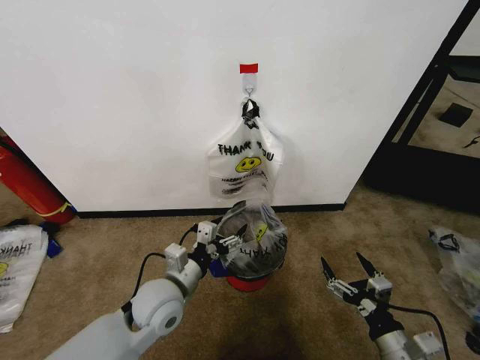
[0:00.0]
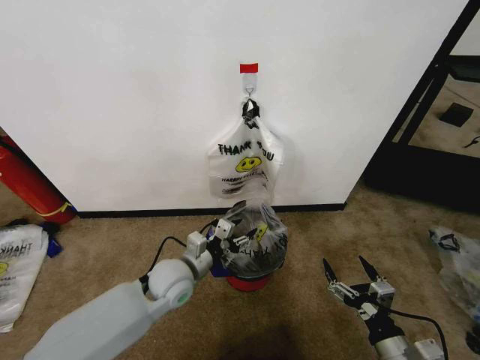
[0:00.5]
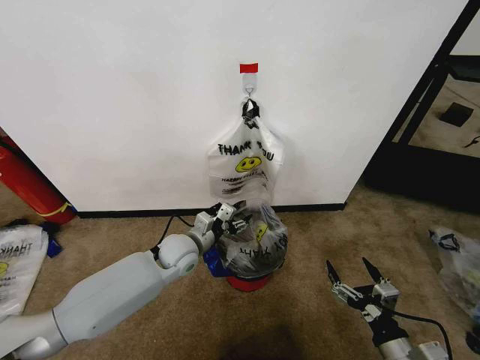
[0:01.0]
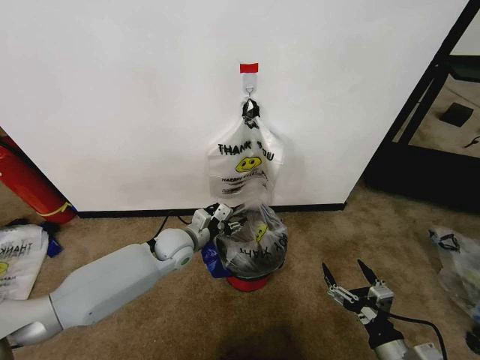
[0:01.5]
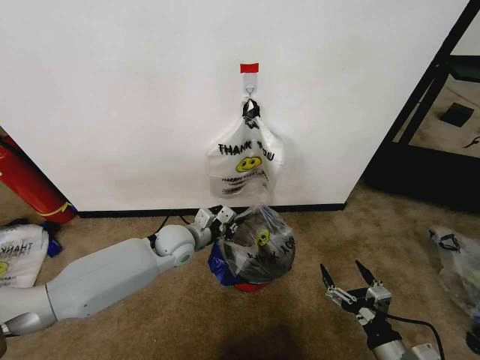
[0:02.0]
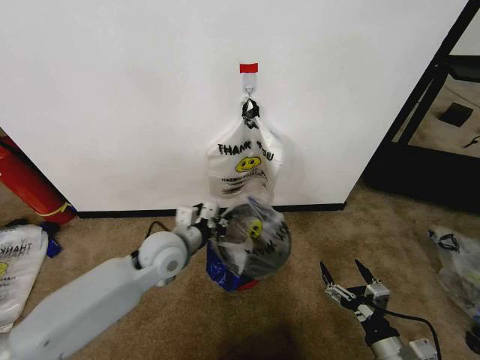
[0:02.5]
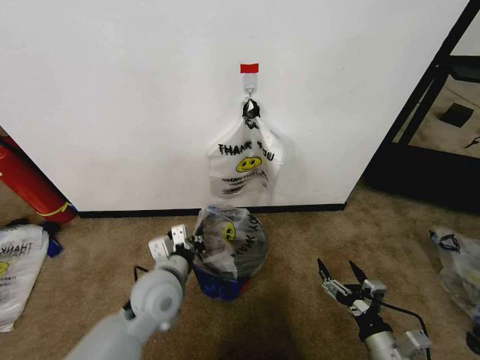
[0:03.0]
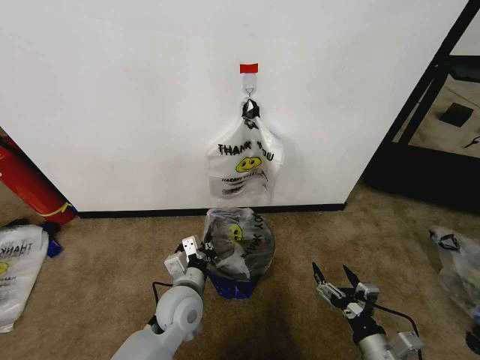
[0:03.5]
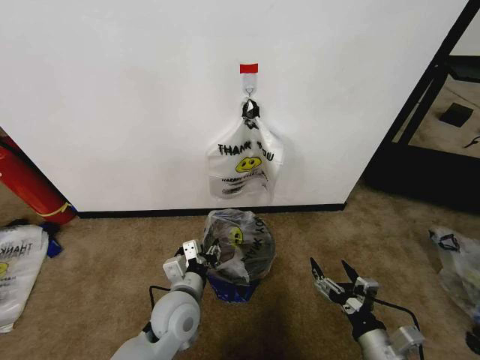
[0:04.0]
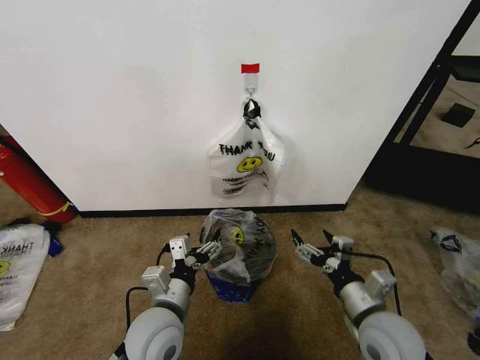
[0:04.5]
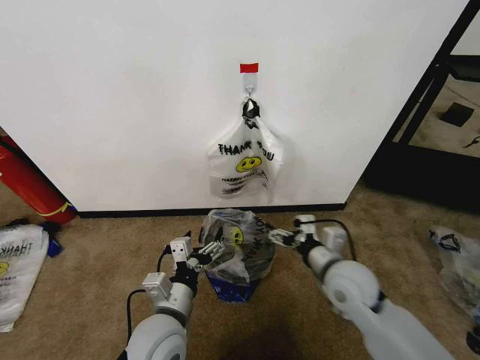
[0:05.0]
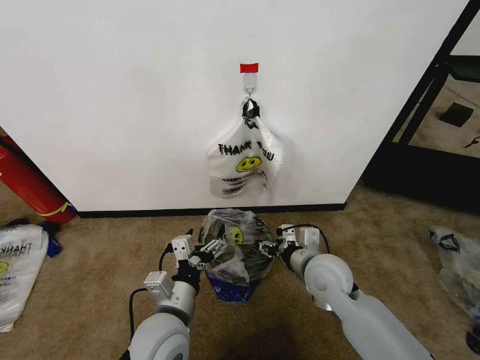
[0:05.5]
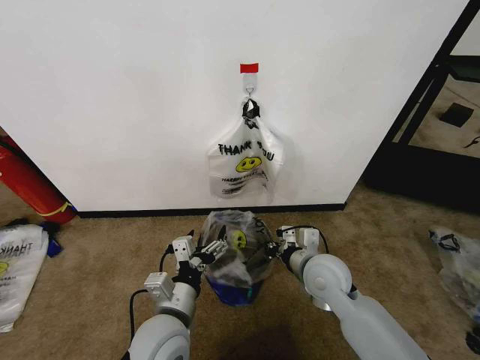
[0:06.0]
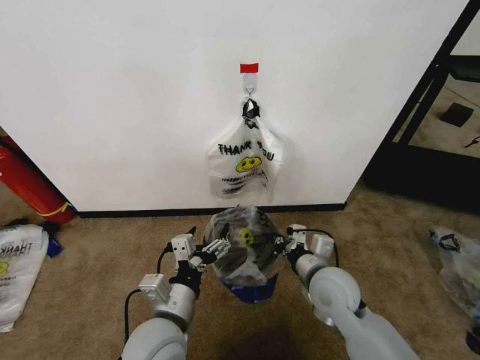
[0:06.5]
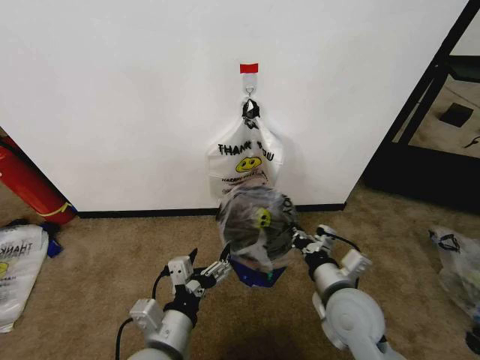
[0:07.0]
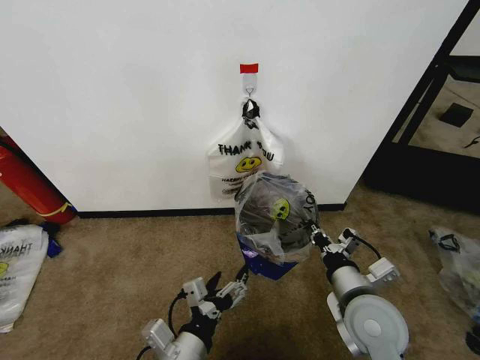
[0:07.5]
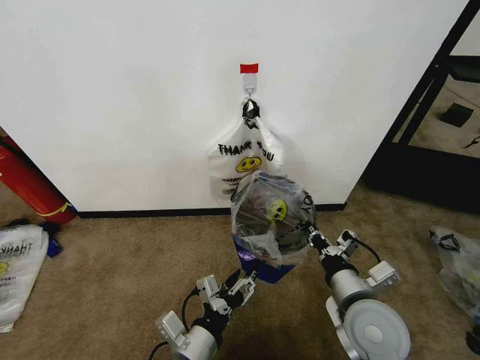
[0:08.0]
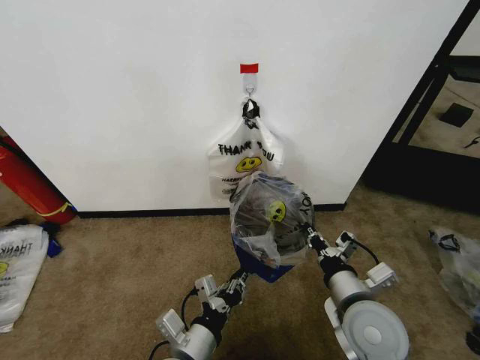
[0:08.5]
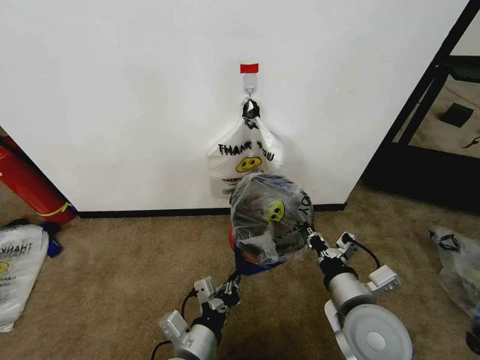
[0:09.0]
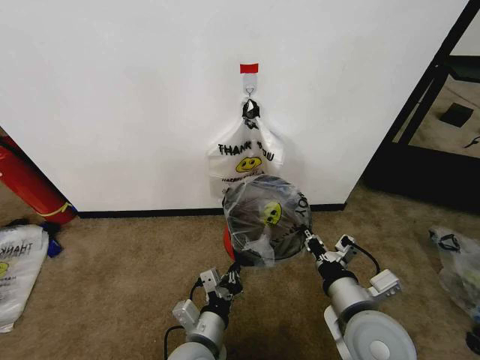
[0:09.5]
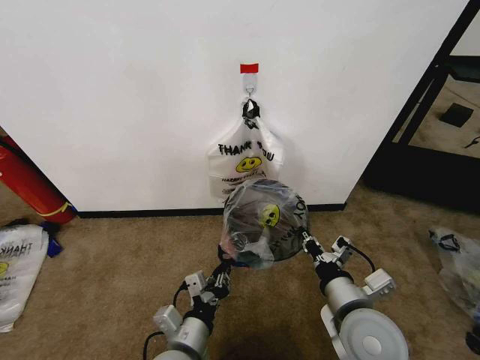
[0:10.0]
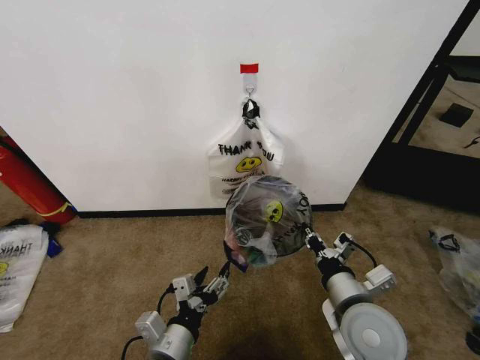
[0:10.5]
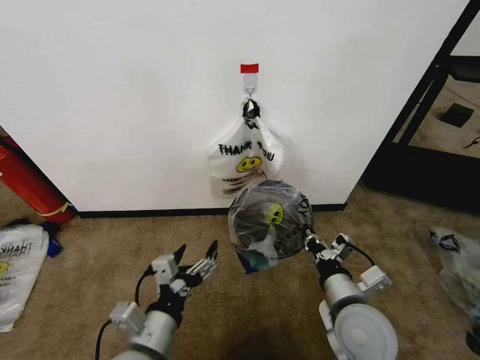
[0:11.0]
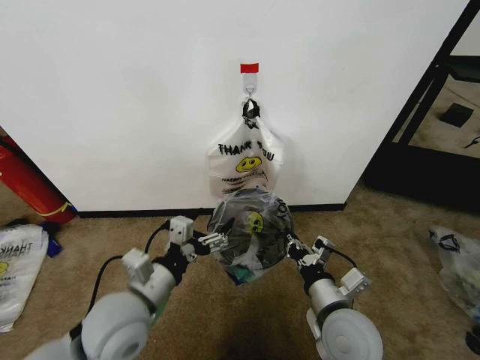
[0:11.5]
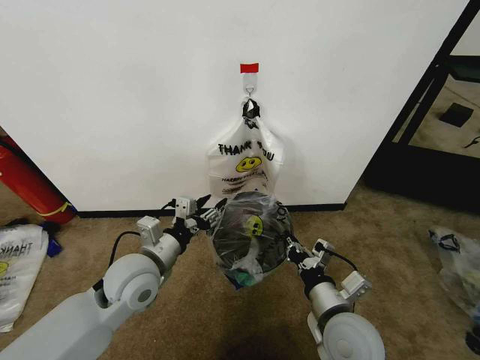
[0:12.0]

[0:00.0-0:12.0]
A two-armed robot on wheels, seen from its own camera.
Task of the whole recording: Pick up the garbage bag from the wall and place it over the trash bin.
0:00.0 to 0:02.0: The left gripper travels forward by roughly 15 cm, and closes up.
0:02.0 to 0:04.0: The left gripper is displaced backward by roughly 15 cm, and opens.
0:04.0 to 0:06.0: The right gripper is displaced forward and to the left by some 20 cm, and closes its fingers; the left gripper is displaced backward and upward by approximately 10 cm, and opens its fingers.
0:06.0 to 0:08.0: The right gripper heads backward, covering roughly 10 cm, while the left gripper heads backward, covering roughly 5 cm.
0:08.0 to 0:10.0: The left gripper closes up.
0:10.0 to 0:12.0: The left gripper shifts roughly 20 cm forward, upward and to the left, and opens its fingers.

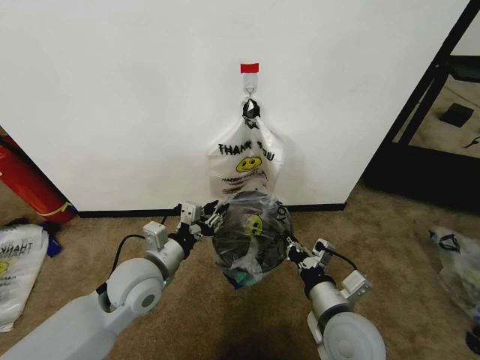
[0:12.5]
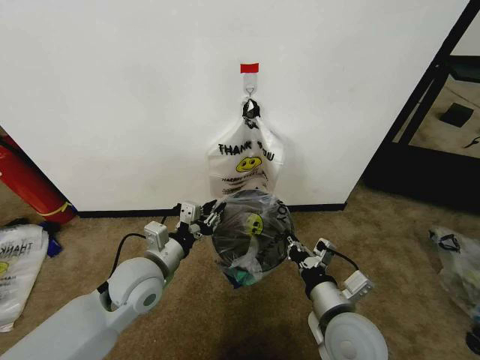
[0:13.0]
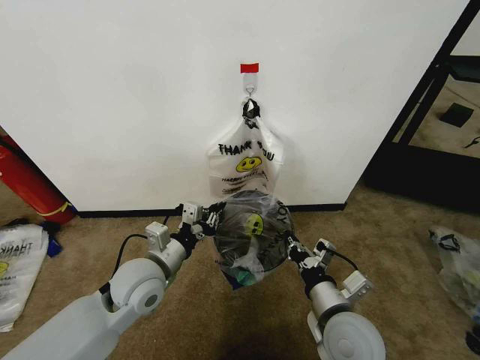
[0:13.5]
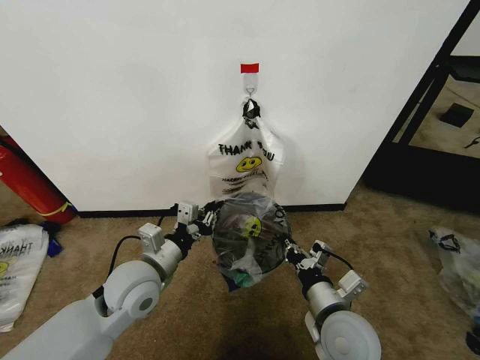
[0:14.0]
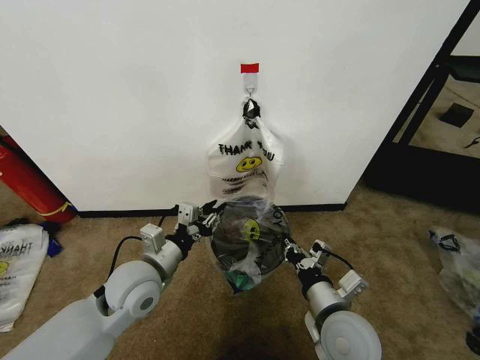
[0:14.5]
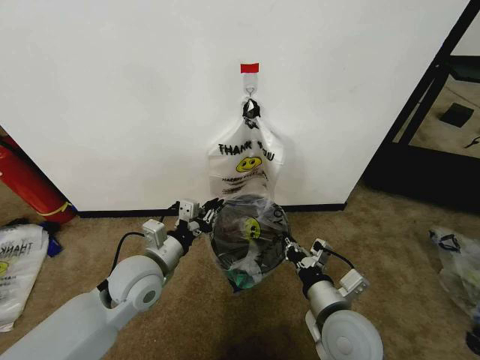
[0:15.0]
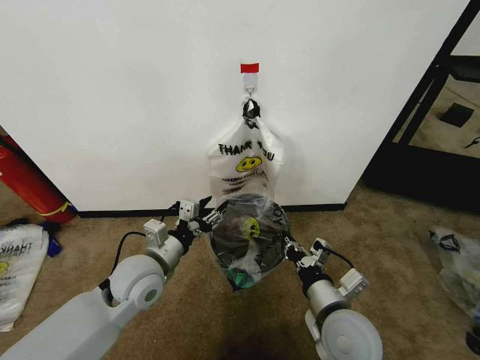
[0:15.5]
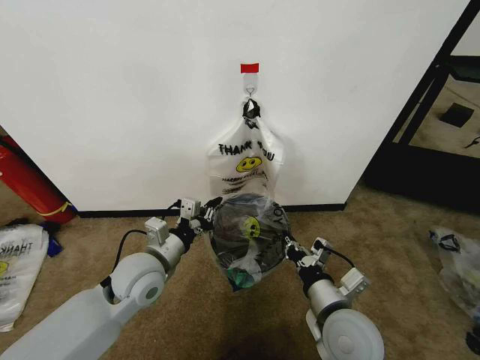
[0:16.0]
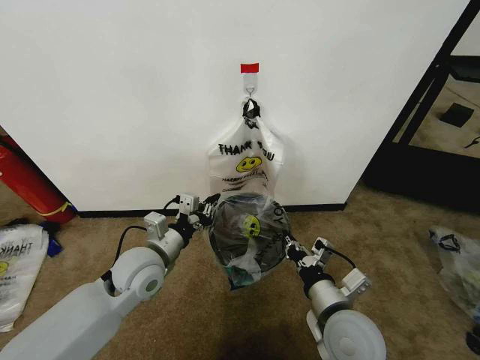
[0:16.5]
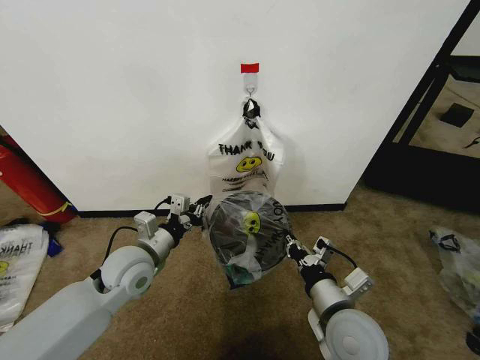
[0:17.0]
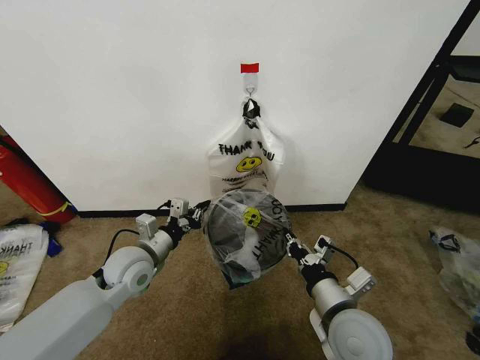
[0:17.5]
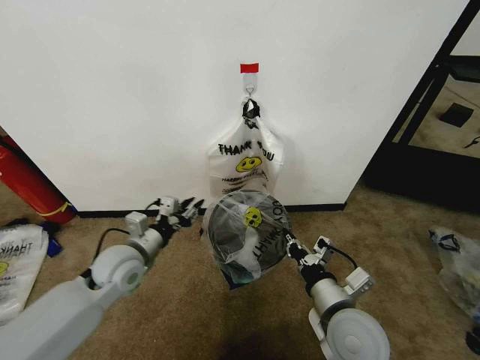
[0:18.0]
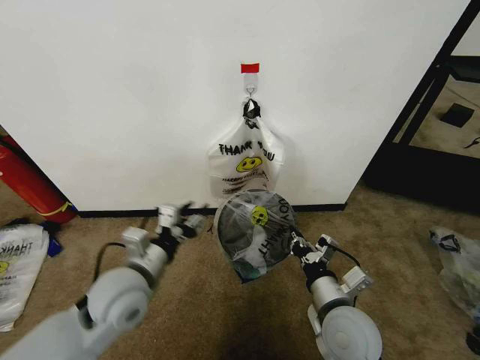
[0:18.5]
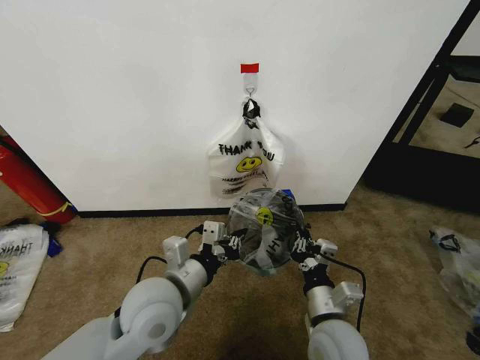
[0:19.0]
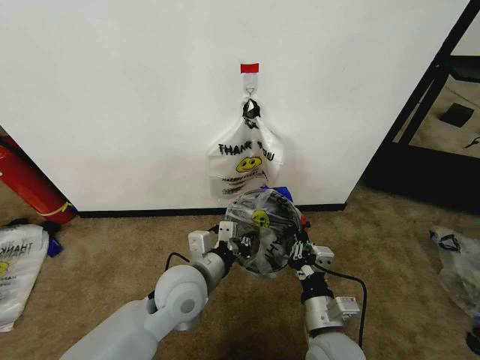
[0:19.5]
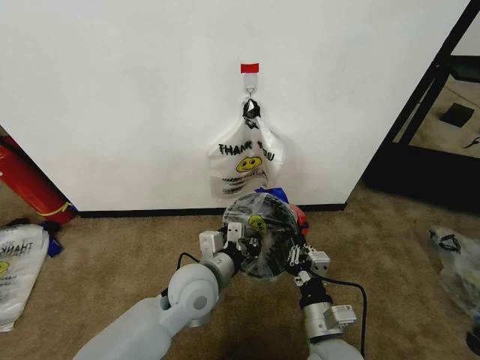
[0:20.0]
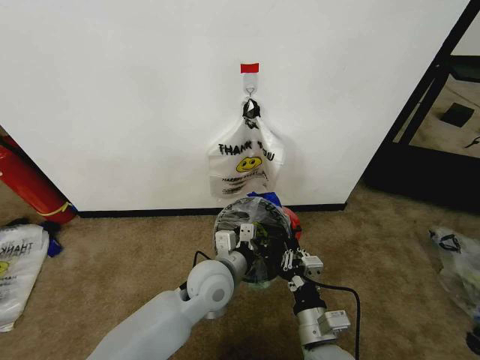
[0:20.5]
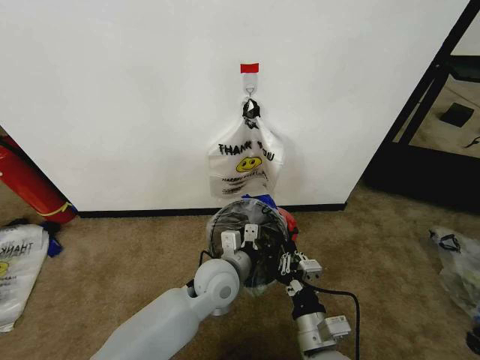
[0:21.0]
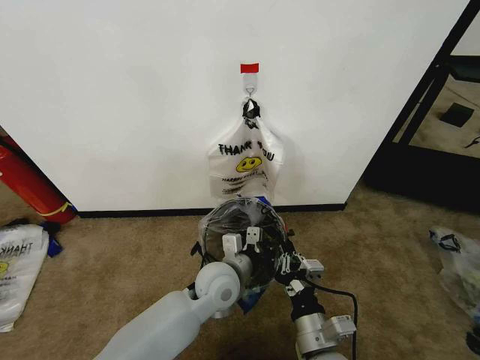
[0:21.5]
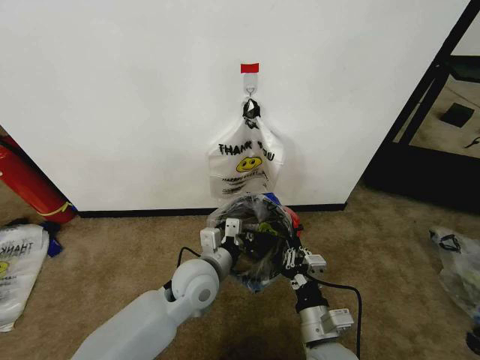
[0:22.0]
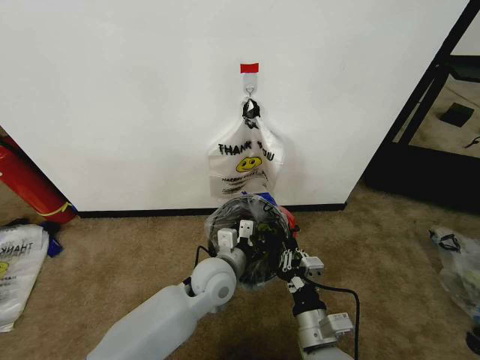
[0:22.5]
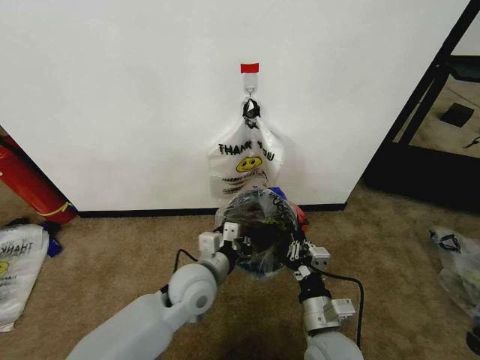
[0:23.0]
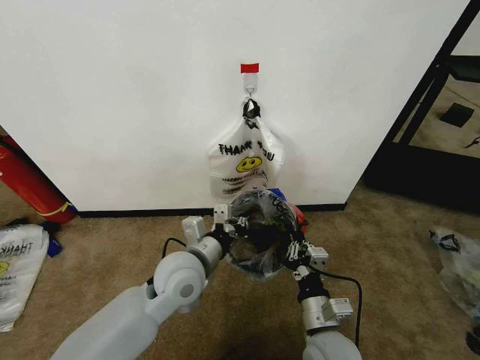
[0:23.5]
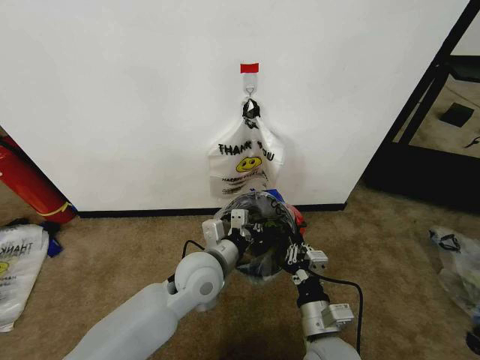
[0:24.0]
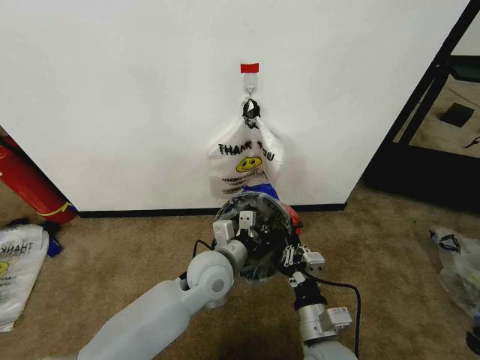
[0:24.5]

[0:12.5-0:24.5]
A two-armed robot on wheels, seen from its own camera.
Task of the whole recording: Pick up the garbage bag from the wall and place it over the trash bin.
0:12.5 to 0:16.5: The grippers move only a little.
0:16.5 to 0:18.5: The left gripper goes roughly 5 cm backward, and opens up.
0:18.5 to 0:20.5: The left gripper goes about 15 cm to the right, and closes; the right gripper changes place by approximately 10 cm.
0:20.5 to 0:22.5: The grippers stay close to where they were, moving slightly.

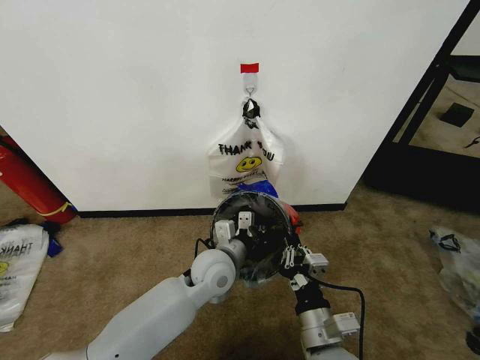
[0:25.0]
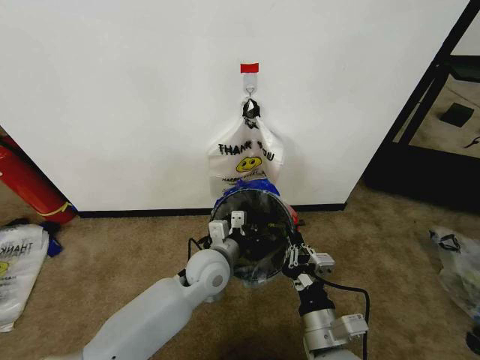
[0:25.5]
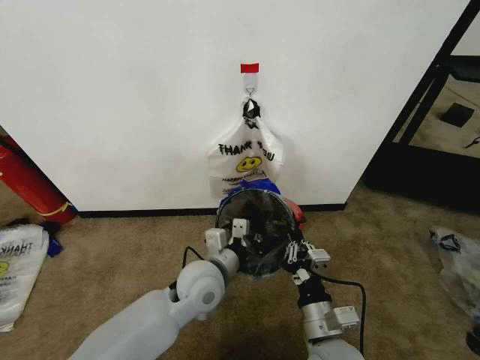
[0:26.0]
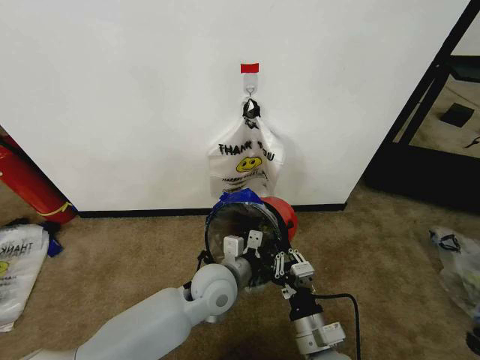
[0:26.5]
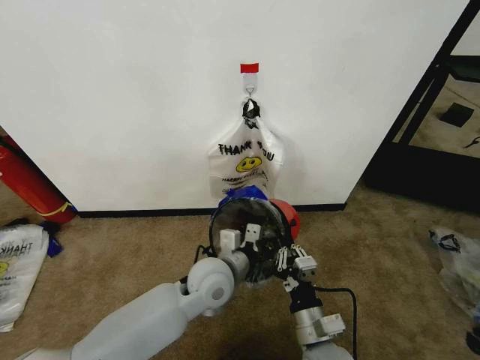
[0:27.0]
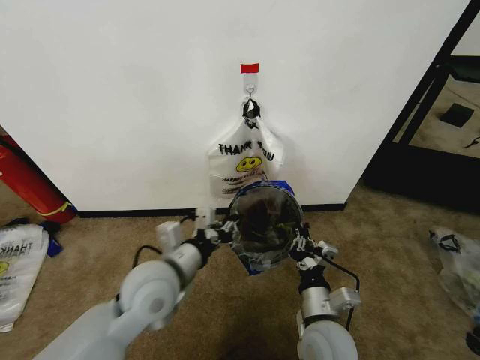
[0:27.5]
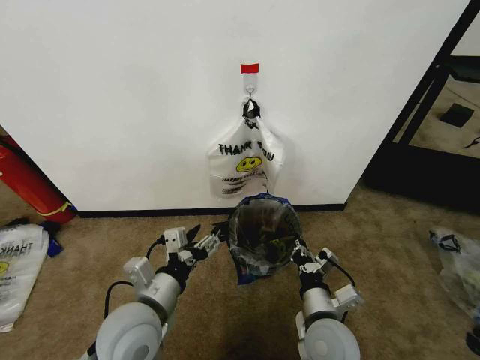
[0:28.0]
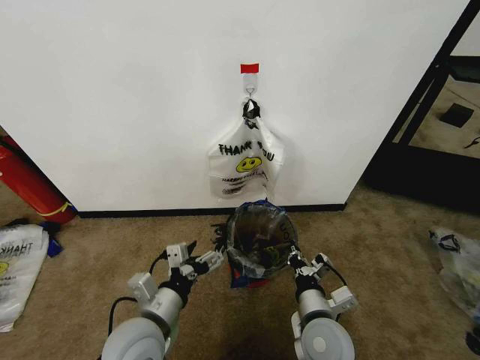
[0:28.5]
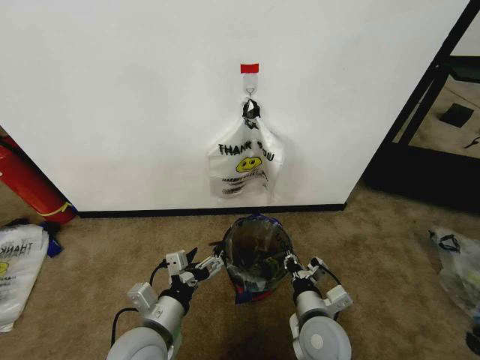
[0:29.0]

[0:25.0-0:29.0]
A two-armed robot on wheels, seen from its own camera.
Task of the whole recording: Pick up the garbage bag from the wall and place it over the trash bin.
0:25.0 to 0:27.0: There are only small adjustments of the grippers.
0:27.0 to 0:29.0: The left gripper heads backward and to the left, covering approximately 15 cm, and opens up.
